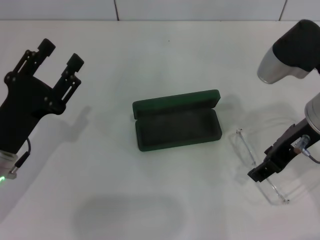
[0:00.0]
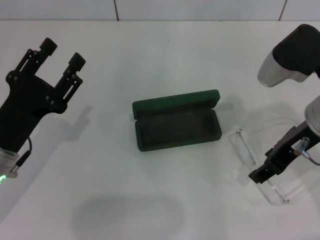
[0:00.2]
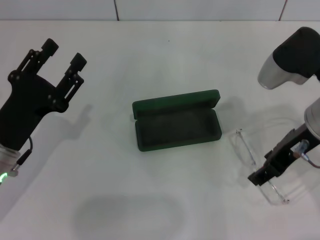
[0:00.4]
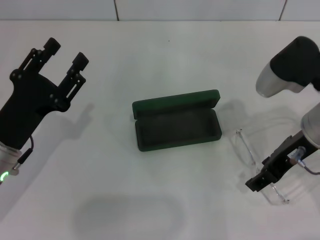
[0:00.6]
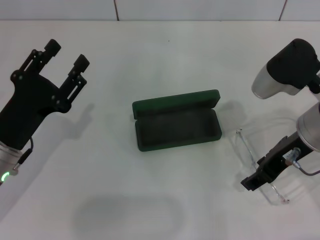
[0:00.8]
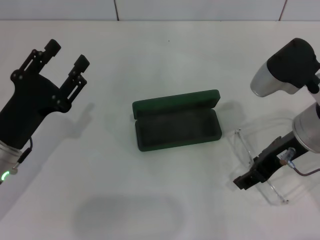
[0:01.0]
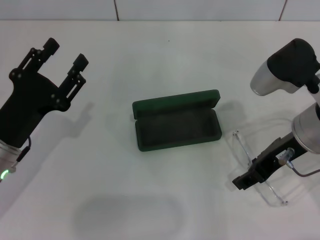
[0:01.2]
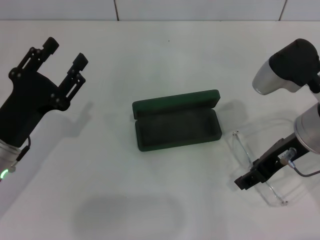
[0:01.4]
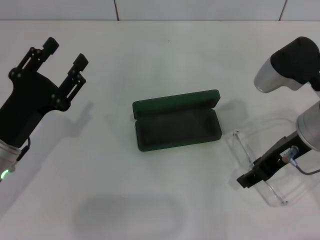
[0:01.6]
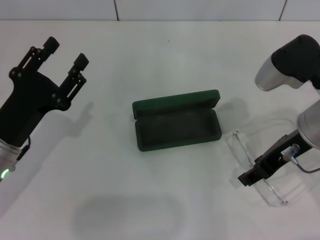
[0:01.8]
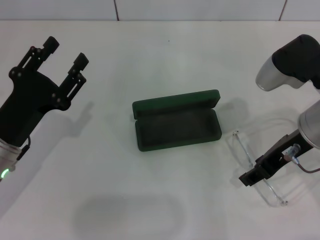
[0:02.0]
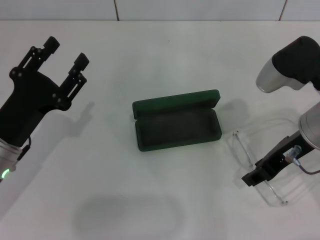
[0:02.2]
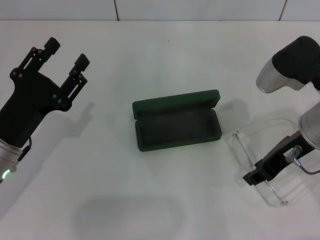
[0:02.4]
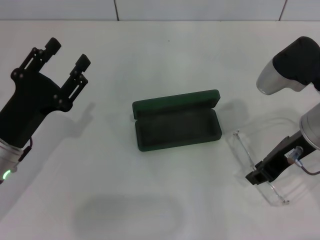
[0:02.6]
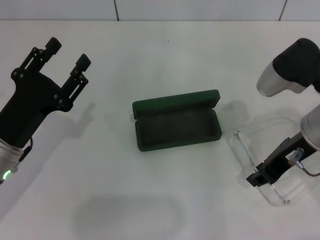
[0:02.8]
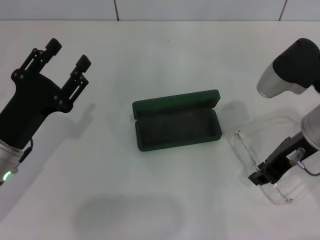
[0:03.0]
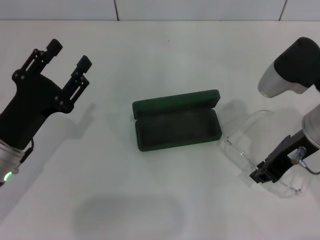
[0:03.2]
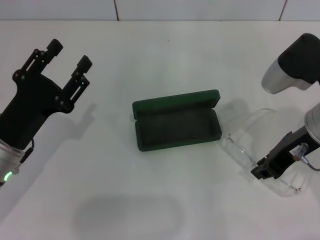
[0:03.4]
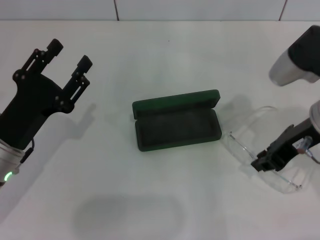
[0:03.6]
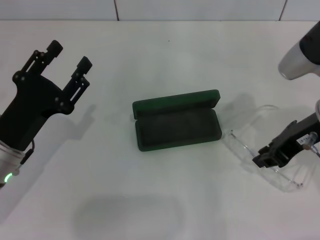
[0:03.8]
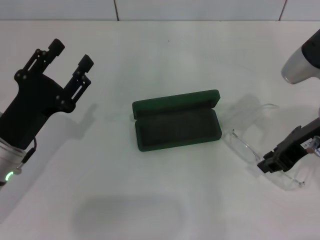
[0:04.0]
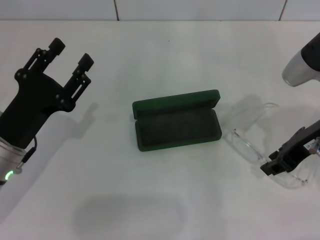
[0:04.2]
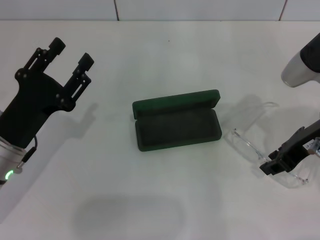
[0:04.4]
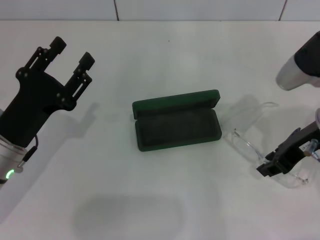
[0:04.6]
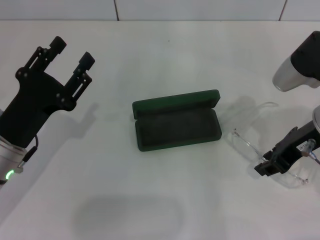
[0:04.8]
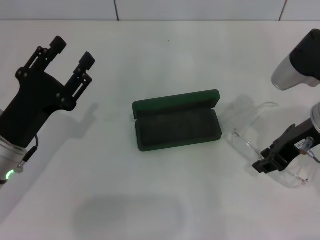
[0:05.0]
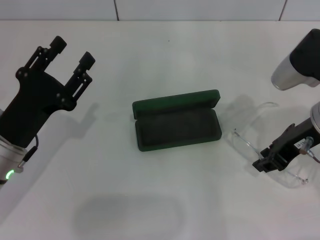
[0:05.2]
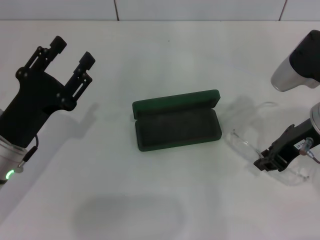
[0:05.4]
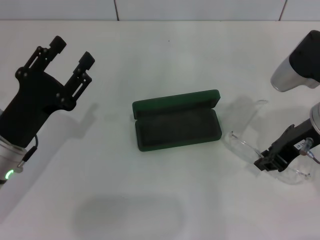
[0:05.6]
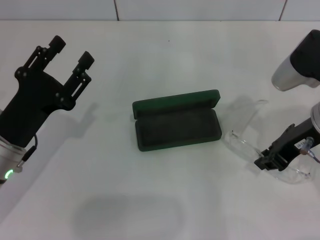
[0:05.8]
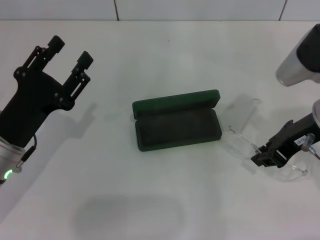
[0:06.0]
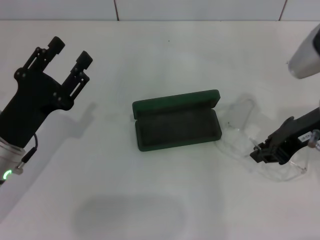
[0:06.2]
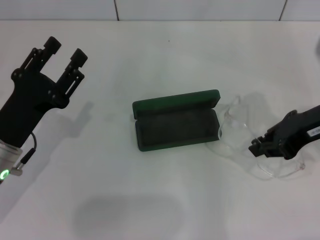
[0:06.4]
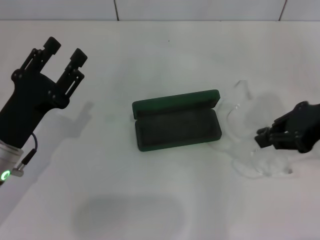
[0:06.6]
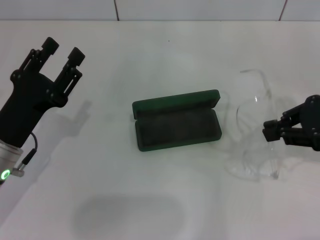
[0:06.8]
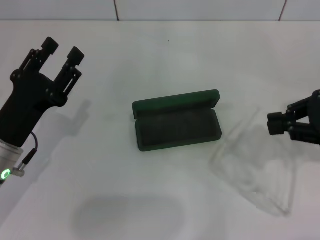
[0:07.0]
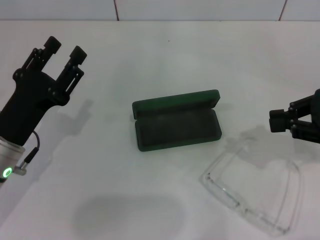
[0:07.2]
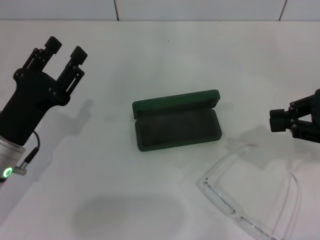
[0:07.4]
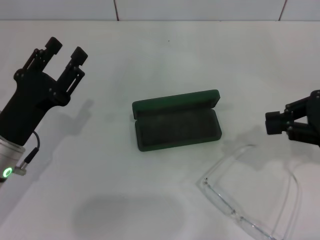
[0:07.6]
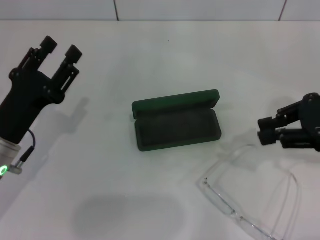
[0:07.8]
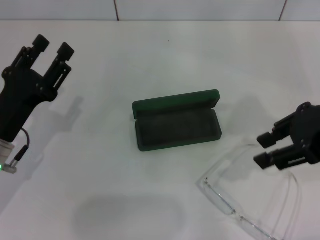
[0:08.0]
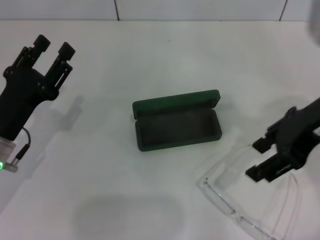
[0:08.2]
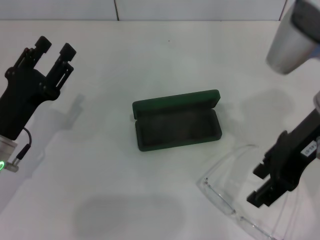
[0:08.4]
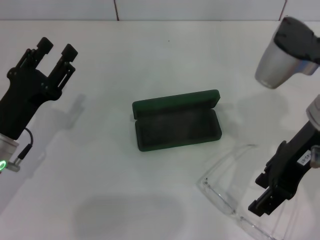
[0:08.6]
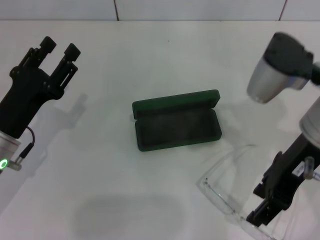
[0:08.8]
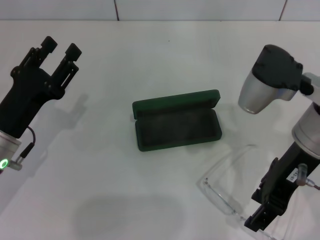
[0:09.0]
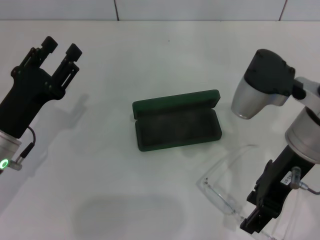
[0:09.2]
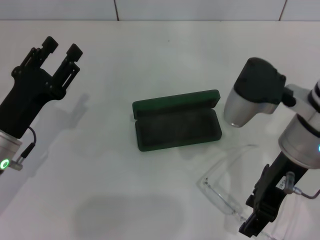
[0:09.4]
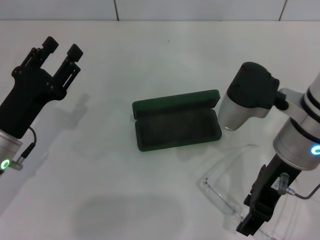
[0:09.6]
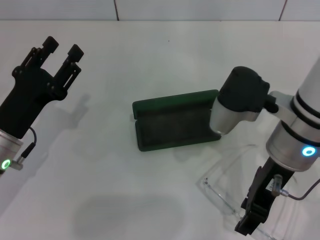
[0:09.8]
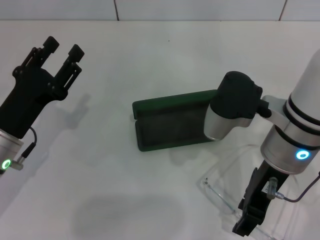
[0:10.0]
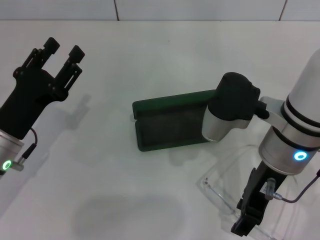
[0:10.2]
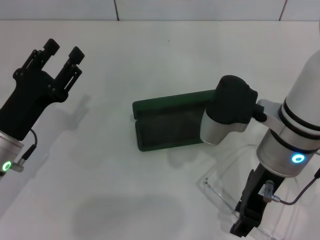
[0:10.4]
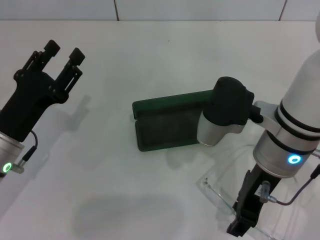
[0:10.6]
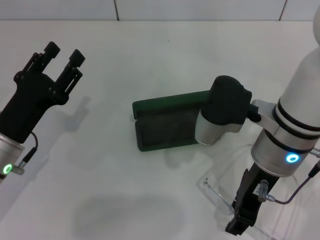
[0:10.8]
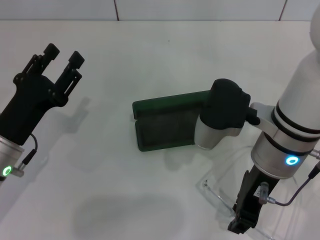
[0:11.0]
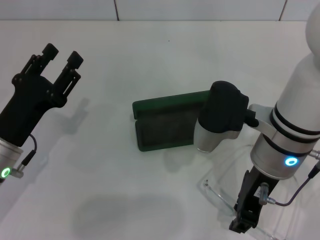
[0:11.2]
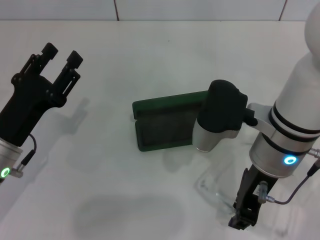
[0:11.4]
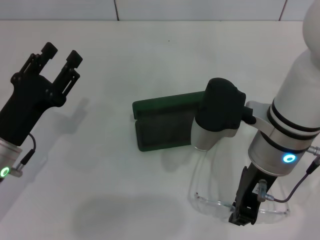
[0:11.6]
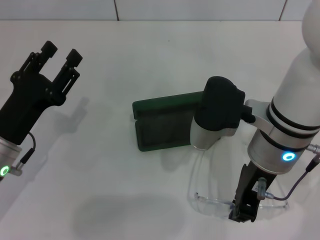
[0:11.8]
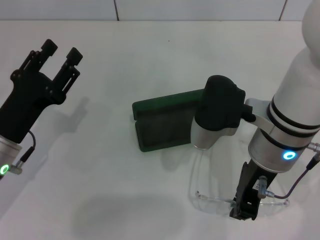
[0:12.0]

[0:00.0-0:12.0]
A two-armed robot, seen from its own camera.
Step, 0:00.0 to 0:06.0: Grab the eyeglass frame with your right hand.
0:00.0 to 0:01.6: The grippers stay close to where they were, moving slightly.
0:01.6 to 0:03.0: The right gripper closes.
0:03.0 to 0:06.0: The grippers make only small movements.
0:06.0 to 0:07.6: The right gripper heads to the right, covering some 10 cm.
0:07.6 to 0:09.0: The right gripper moves to the left, some 15 cm, and opens.
0:09.0 to 0:10.4: The right gripper moves about 5 cm.
0:10.4 to 0:12.0: The right gripper closes its fingers.

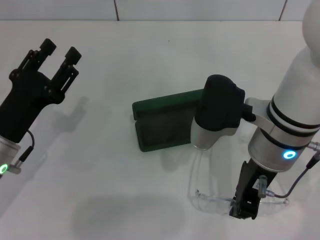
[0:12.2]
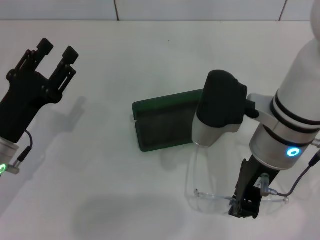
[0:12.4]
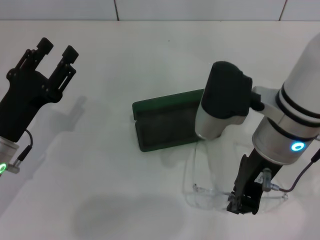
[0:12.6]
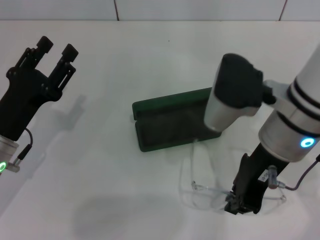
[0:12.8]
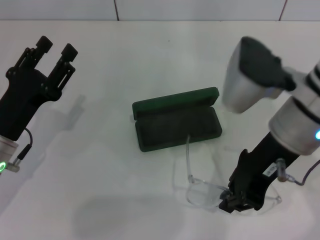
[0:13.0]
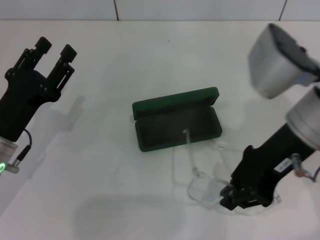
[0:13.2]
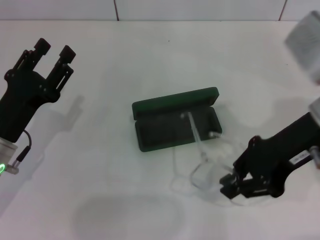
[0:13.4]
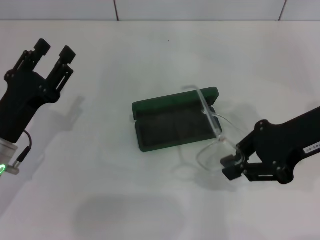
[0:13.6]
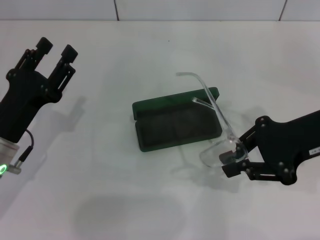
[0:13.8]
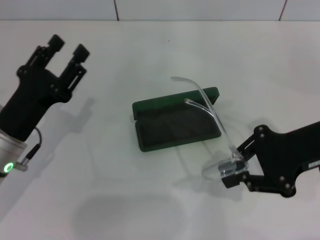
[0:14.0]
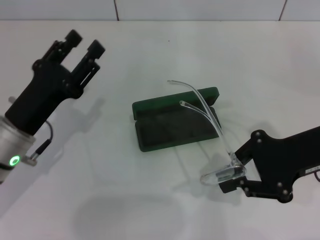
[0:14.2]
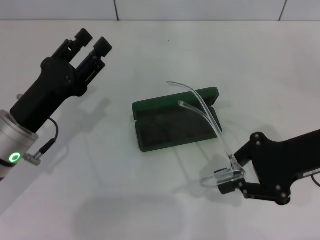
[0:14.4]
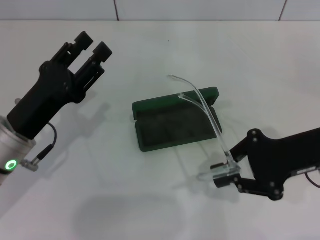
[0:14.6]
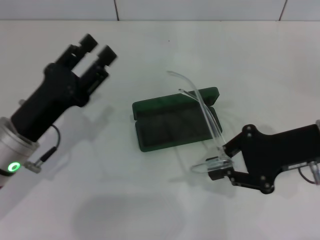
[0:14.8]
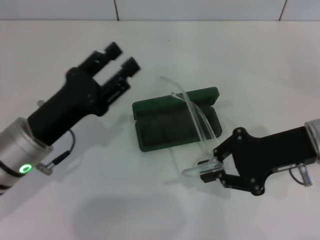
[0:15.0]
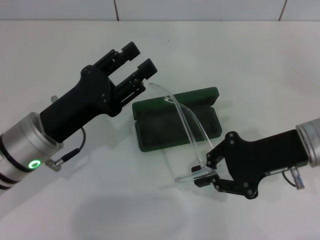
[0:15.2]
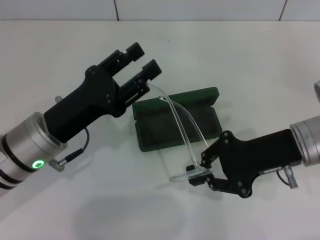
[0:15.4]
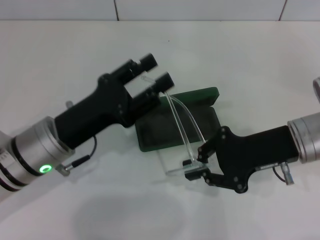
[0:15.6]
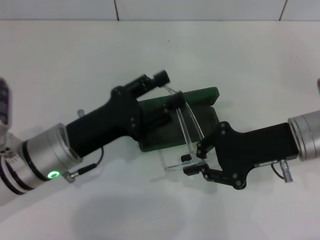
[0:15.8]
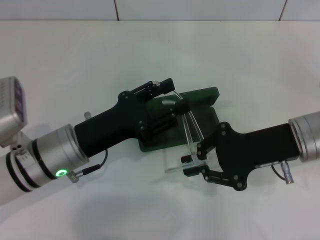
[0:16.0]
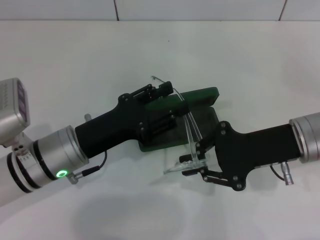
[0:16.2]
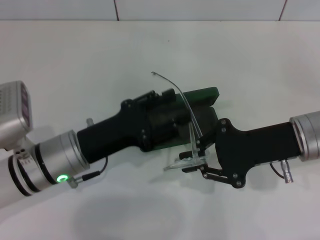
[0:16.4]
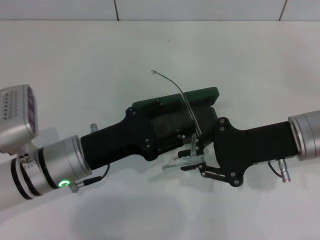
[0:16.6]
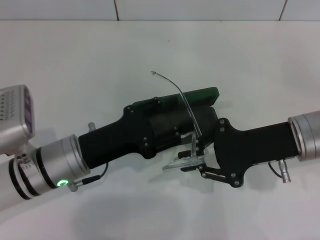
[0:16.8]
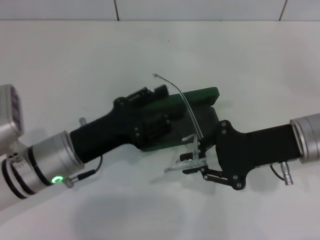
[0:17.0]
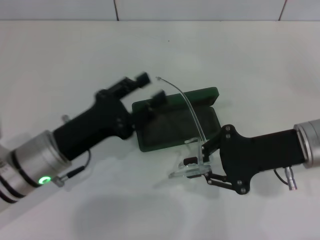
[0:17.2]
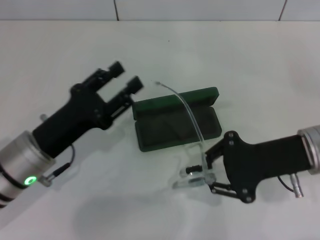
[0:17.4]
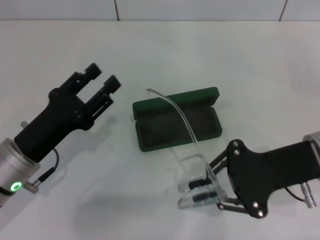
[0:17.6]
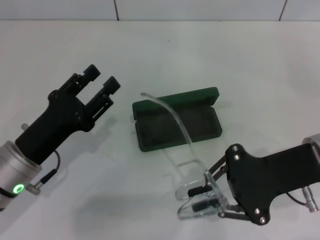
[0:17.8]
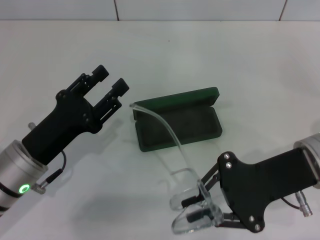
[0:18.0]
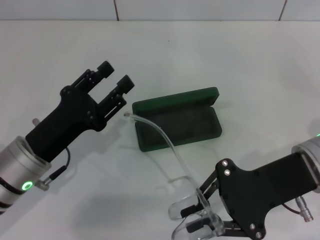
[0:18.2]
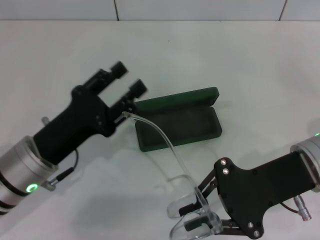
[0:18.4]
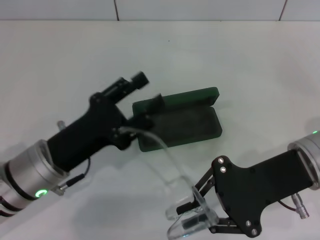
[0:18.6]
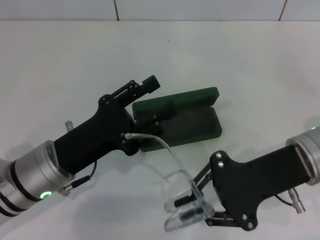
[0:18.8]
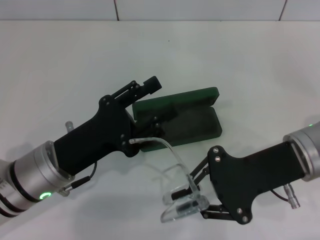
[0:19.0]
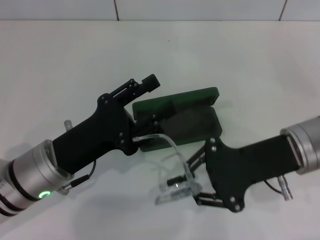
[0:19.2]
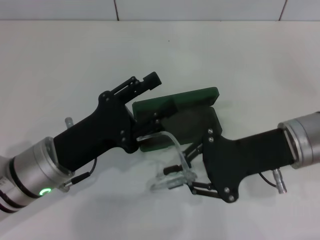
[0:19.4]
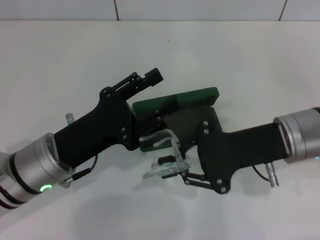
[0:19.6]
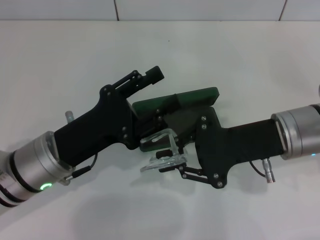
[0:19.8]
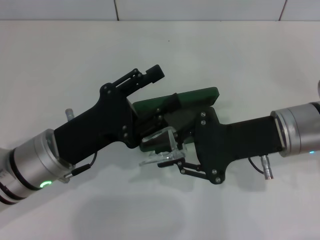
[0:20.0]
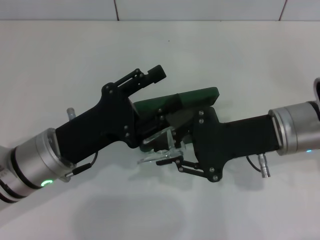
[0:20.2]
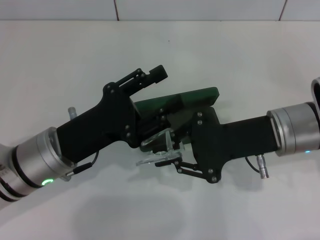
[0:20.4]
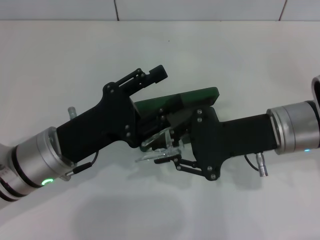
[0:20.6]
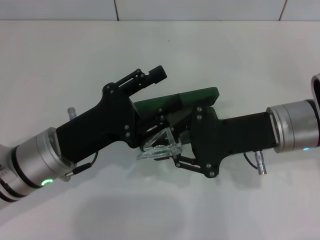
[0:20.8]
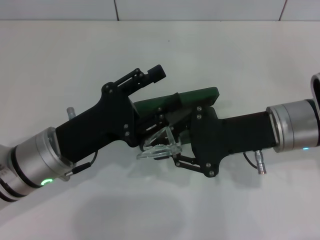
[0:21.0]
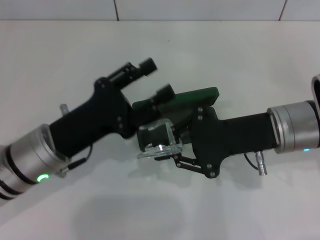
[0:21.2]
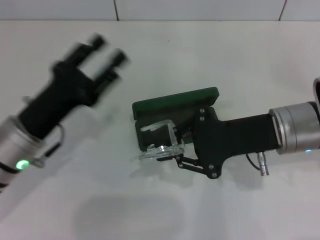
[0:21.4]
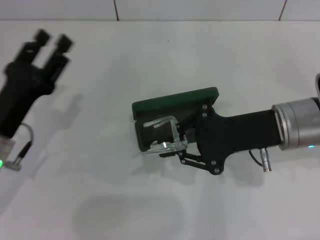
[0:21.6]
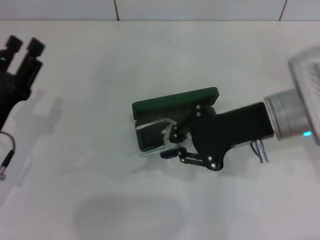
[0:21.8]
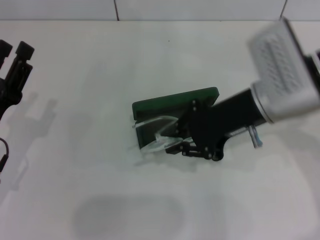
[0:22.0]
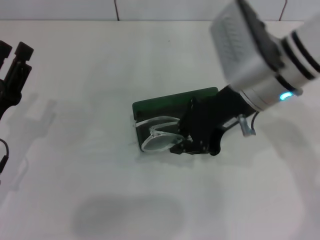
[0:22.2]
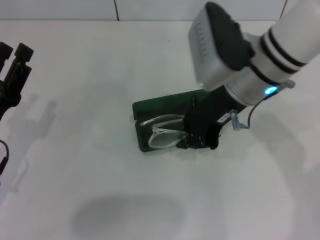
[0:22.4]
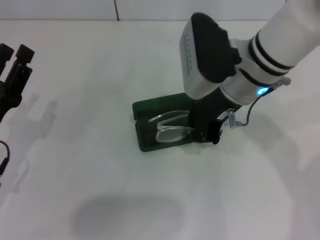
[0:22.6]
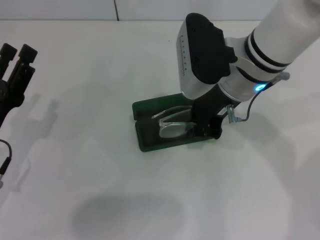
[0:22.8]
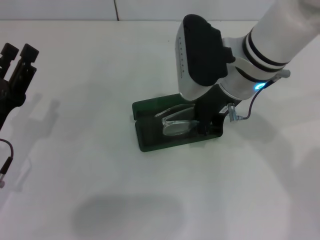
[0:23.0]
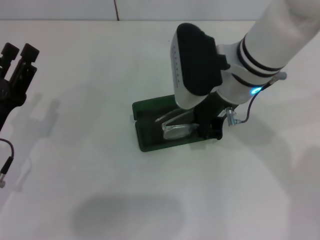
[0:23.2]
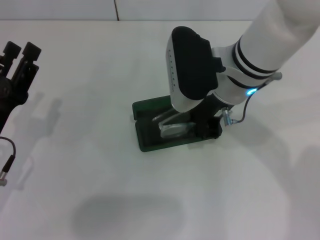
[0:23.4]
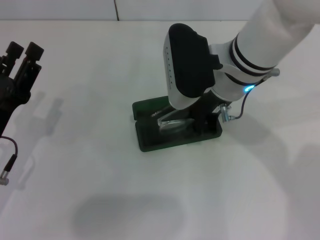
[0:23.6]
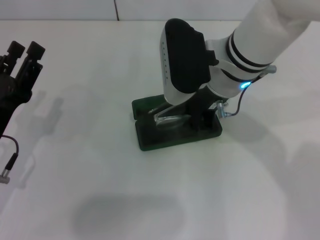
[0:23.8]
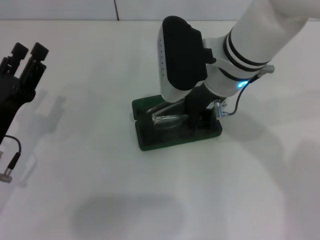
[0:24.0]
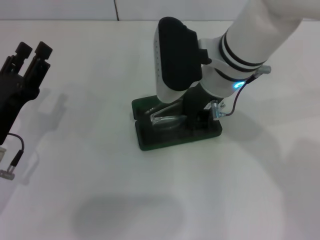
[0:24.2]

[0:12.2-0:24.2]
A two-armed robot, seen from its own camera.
Step, 0:12.2 to 0:20.0: Lift the glasses with your right hand.
0:12.2 to 0:13.8: The right gripper moves to the right, approximately 15 cm.
0:13.8 to 0:15.2: The right gripper heads downward, covering roughly 5 cm. The left gripper moves to the right, roughly 5 cm.
0:19.8 to 0:21.2: Both grippers stay about where they are.
0:21.2 to 0:22.6: The left gripper goes approximately 10 cm to the left. Meanwhile the right gripper is displaced to the left and forward by about 10 cm.
0:22.6 to 0:24.2: The grippers stay close to where they were, moving slightly.
